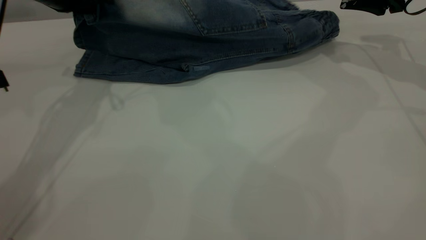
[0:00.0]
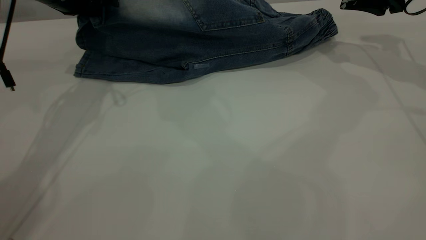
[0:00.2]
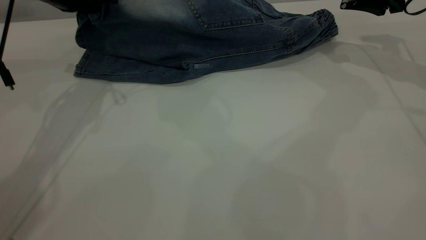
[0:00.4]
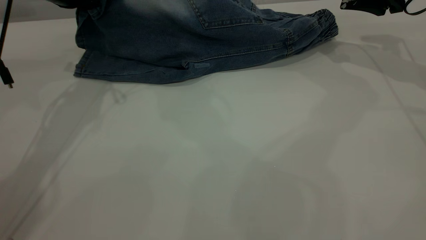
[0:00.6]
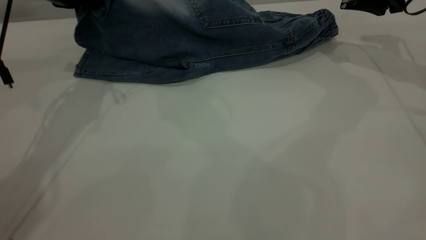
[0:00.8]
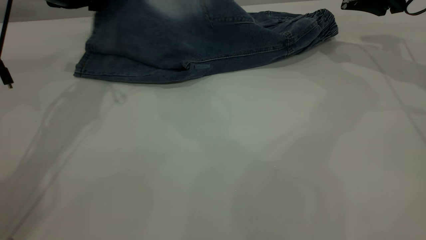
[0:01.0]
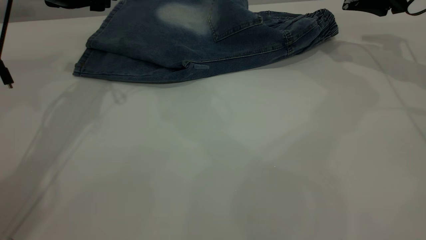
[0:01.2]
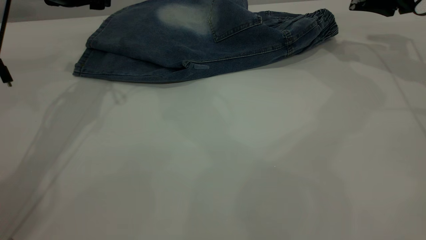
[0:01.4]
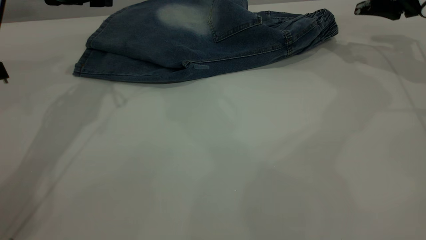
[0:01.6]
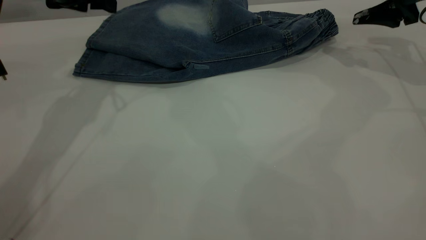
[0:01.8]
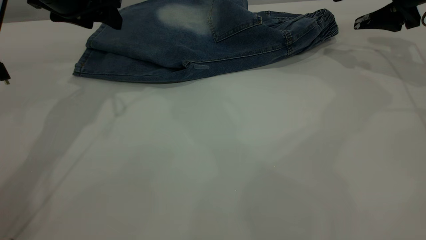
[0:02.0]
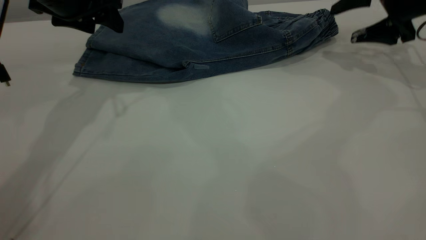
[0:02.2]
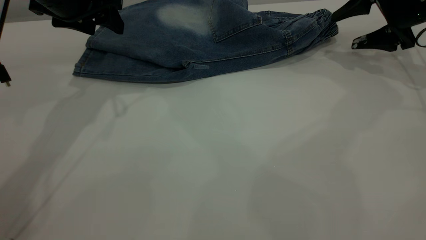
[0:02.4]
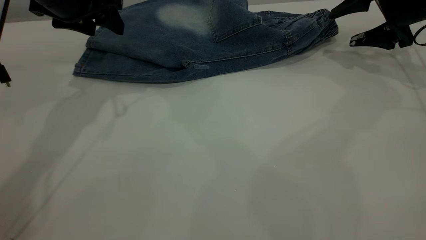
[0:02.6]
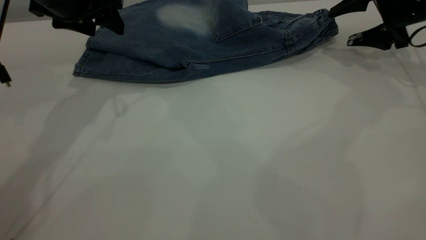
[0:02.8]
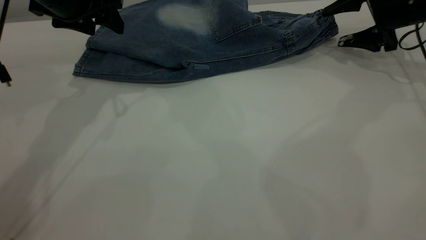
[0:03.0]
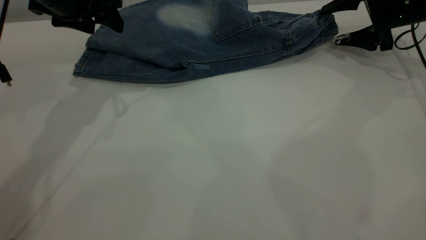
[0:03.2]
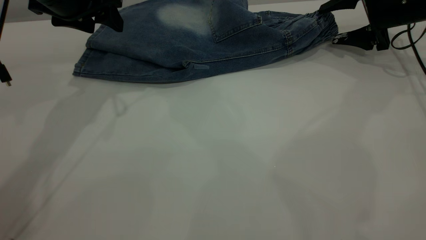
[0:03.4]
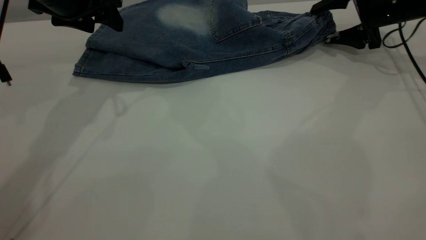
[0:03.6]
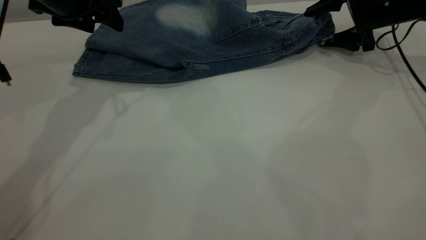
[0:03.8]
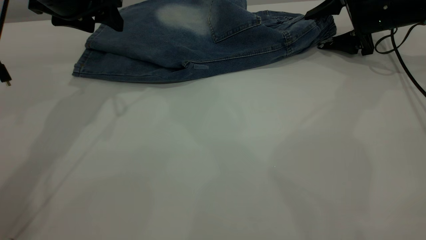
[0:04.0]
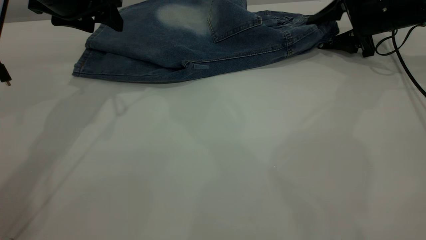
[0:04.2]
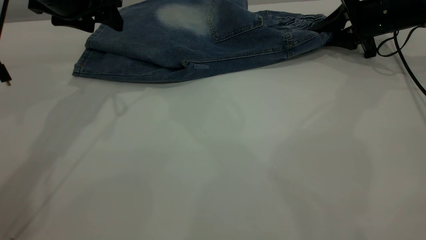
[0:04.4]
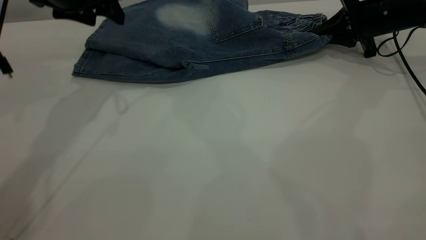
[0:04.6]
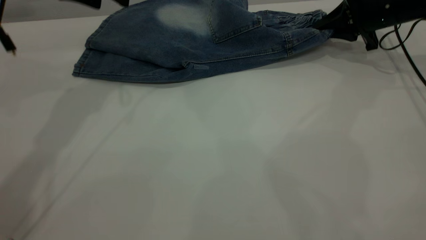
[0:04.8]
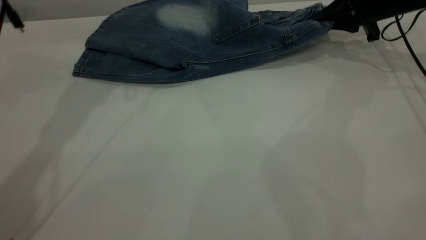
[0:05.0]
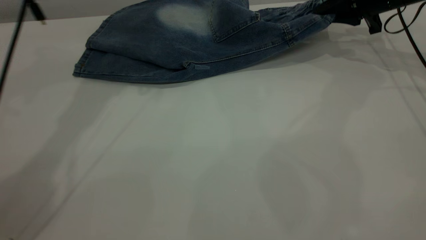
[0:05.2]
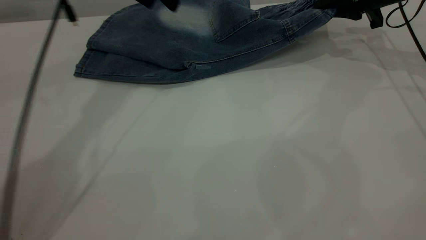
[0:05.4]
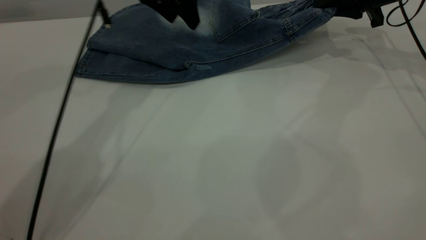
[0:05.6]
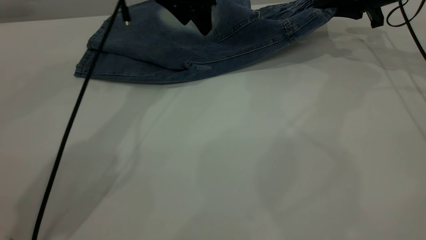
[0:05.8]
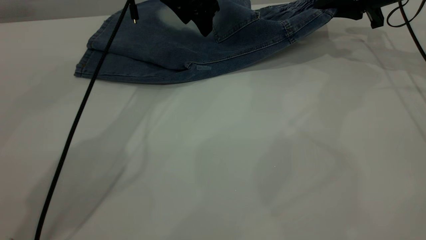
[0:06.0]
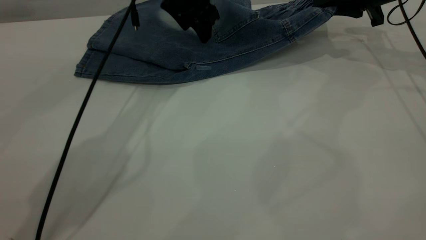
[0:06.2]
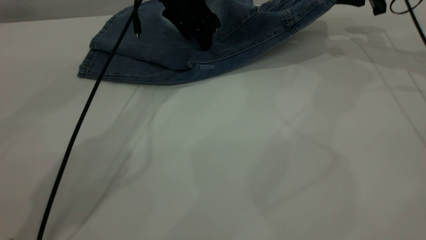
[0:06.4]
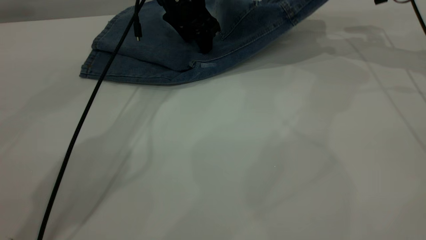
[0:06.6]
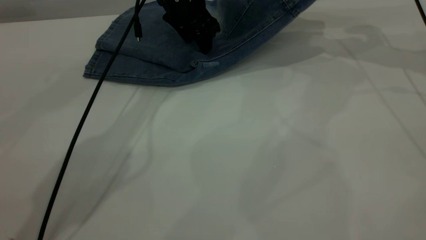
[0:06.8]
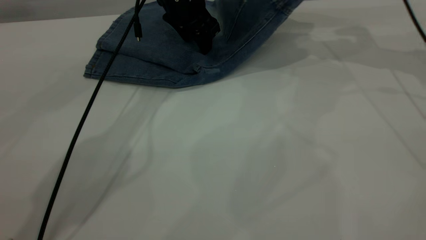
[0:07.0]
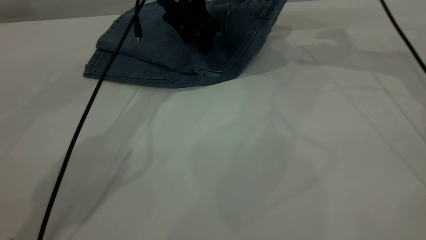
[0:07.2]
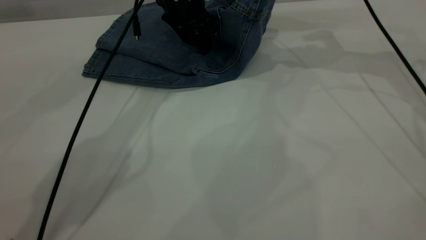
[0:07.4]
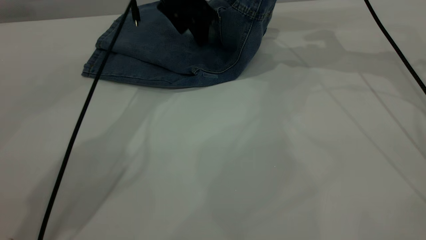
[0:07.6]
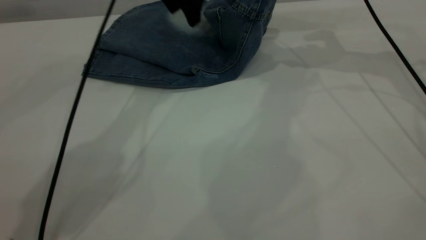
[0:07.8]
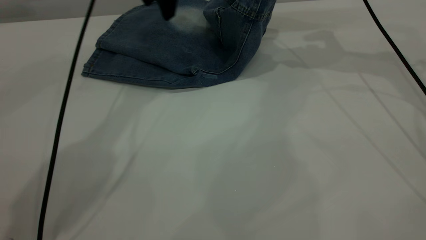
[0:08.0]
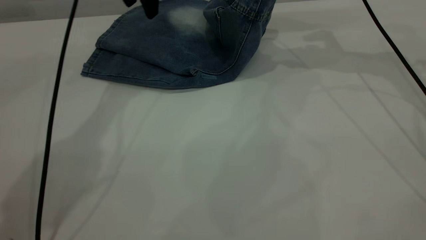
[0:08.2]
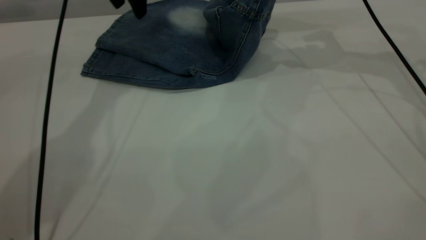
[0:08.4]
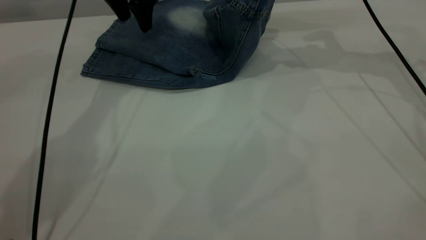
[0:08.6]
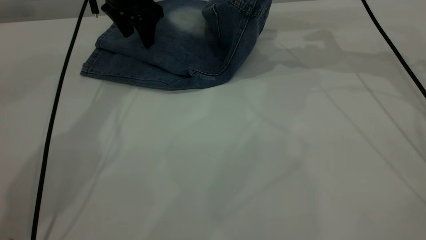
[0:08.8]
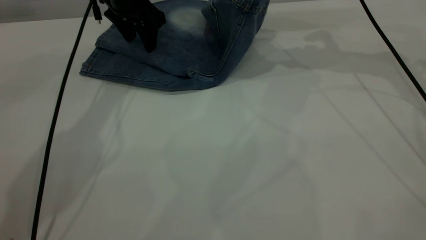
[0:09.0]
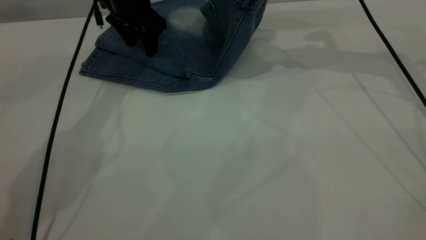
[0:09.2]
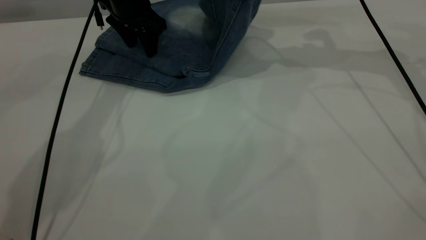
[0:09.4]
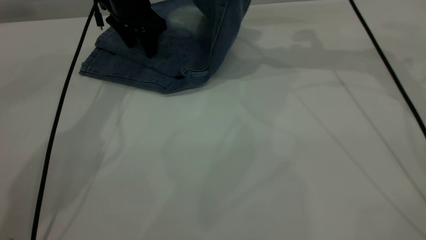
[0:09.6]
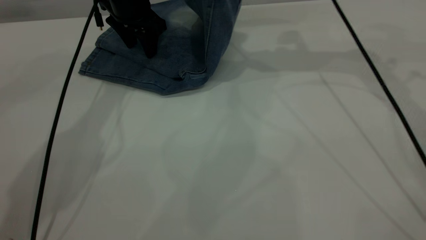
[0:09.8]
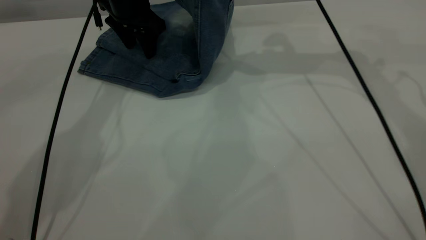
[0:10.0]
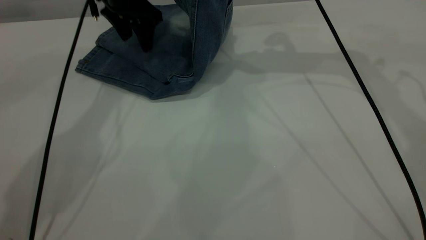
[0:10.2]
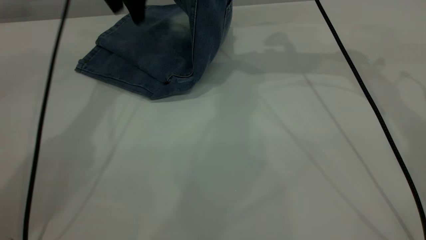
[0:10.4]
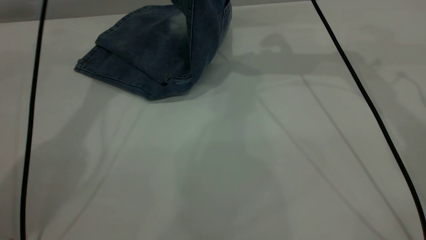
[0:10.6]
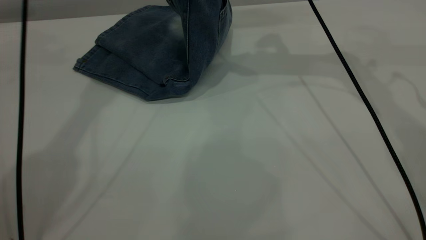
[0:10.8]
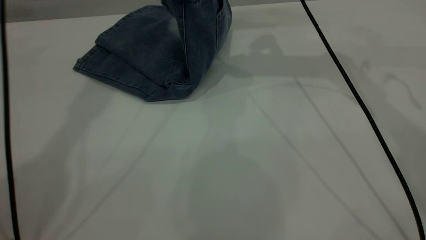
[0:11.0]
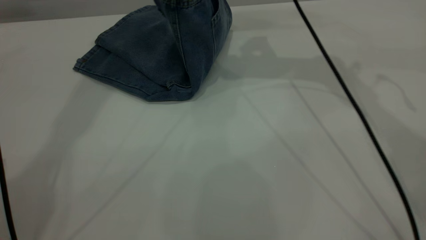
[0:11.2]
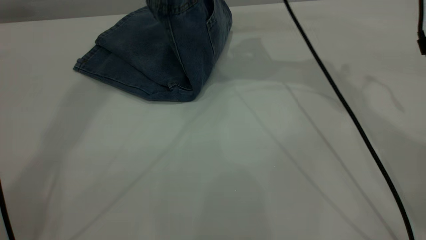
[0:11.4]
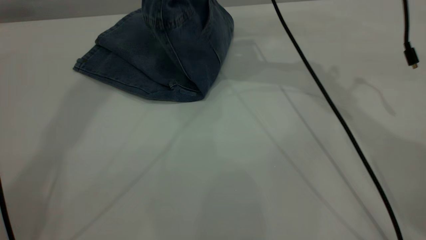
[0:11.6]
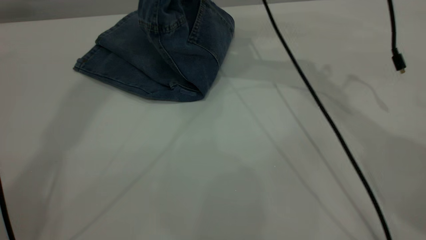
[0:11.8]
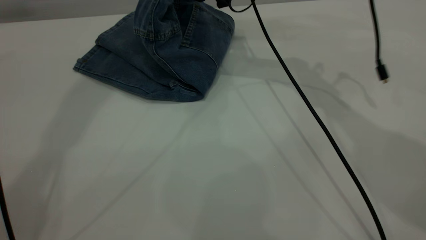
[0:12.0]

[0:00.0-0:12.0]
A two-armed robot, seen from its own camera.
0:00.0 to 0:01.6: The left gripper opens.
0:01.6 to 0:03.0: The right gripper goes some 5 cm downward.
0:03.0 to 0:04.4: The right gripper closes its fingers.
0:04.4 to 0:06.0: The left gripper goes approximately 20 cm to the right and forward; the right gripper is displaced upward by roughly 5 cm.
0:06.0 to 0:07.6: The right gripper shifts approximately 10 cm to the left and upward.
0:07.6 to 0:09.0: The left gripper shifts approximately 10 cm to the left.
0:09.0 to 0:10.4: The left gripper travels upward by approximately 10 cm; the right gripper moves to the left, roughly 5 cm.
0:10.4 to 0:12.0: The left gripper shifts roughly 25 cm upward. Meanwhile the right gripper shifts approximately 10 cm to the left and downward.

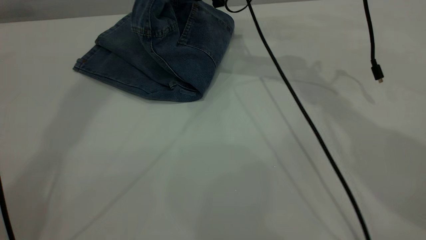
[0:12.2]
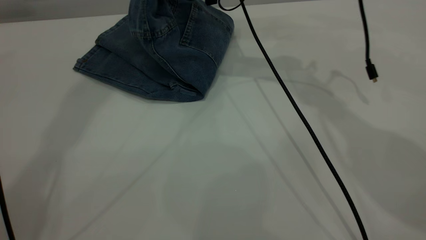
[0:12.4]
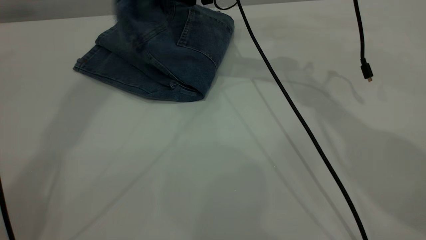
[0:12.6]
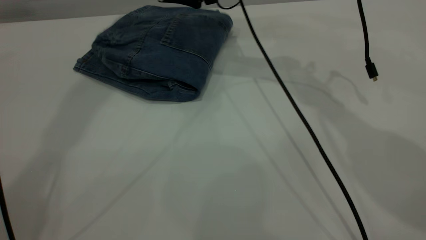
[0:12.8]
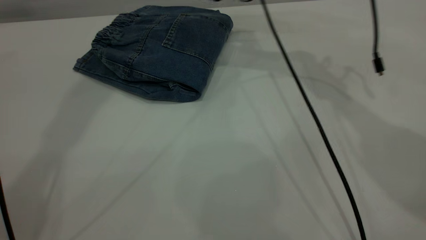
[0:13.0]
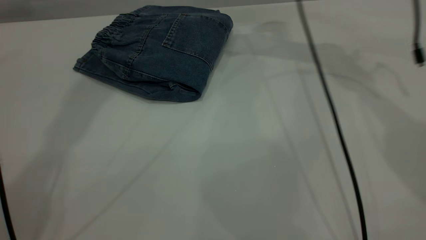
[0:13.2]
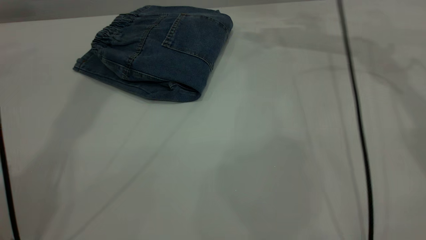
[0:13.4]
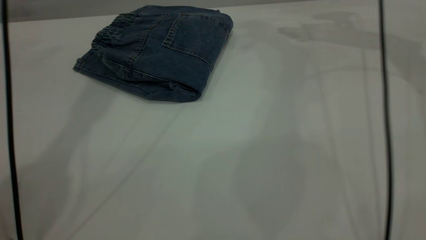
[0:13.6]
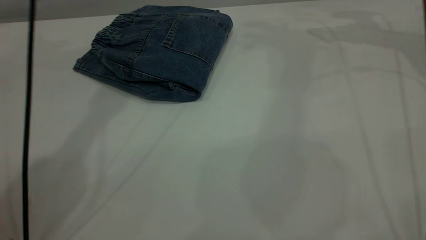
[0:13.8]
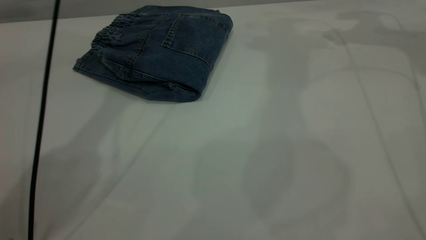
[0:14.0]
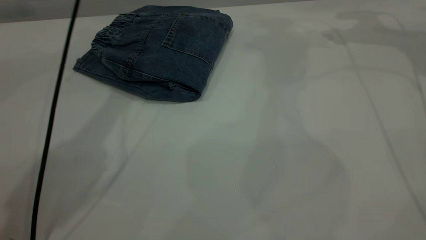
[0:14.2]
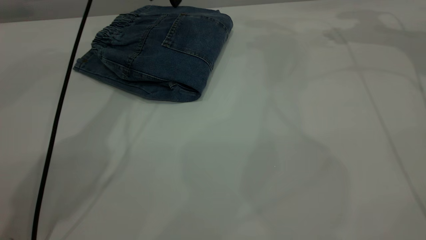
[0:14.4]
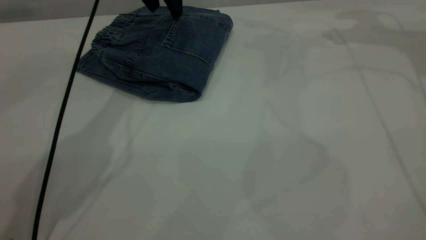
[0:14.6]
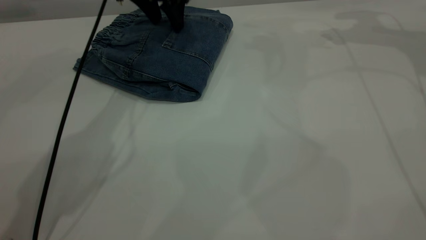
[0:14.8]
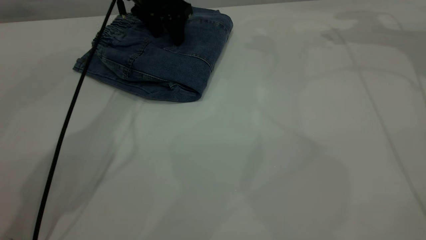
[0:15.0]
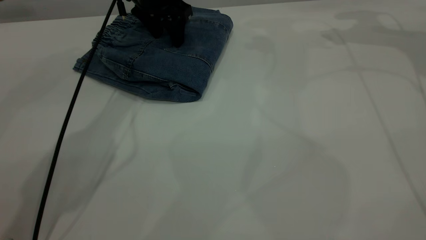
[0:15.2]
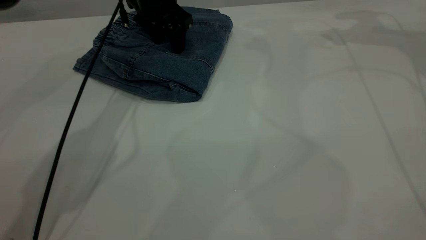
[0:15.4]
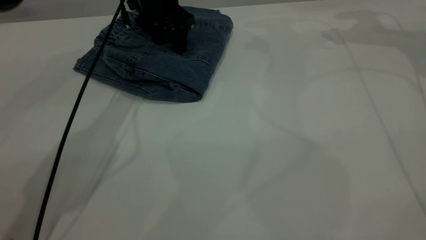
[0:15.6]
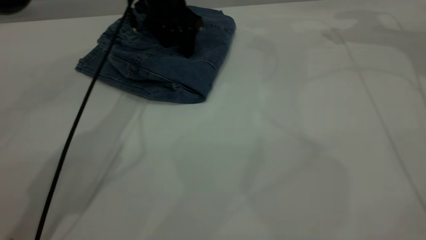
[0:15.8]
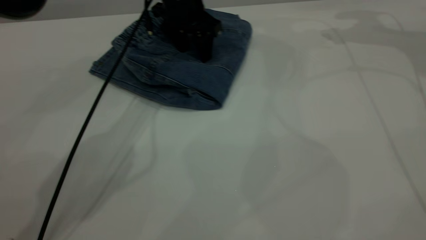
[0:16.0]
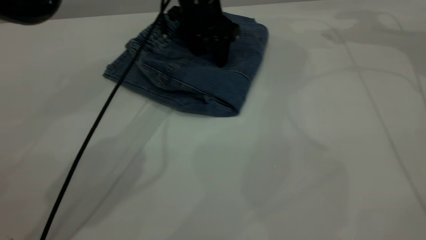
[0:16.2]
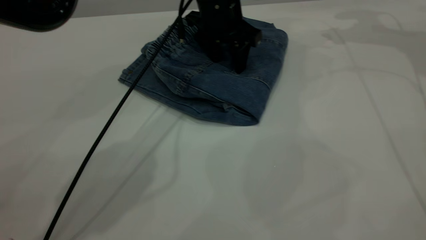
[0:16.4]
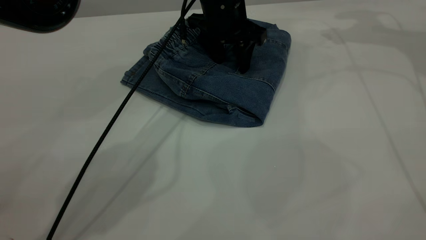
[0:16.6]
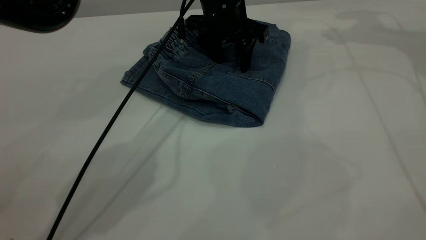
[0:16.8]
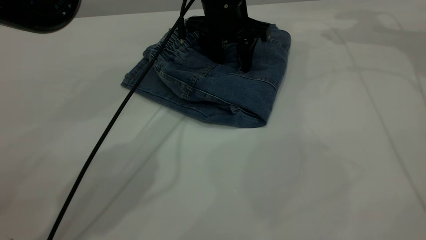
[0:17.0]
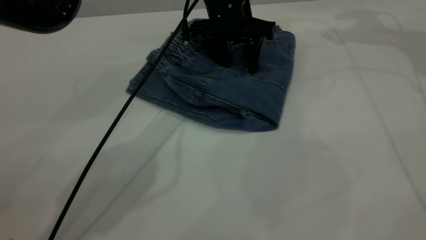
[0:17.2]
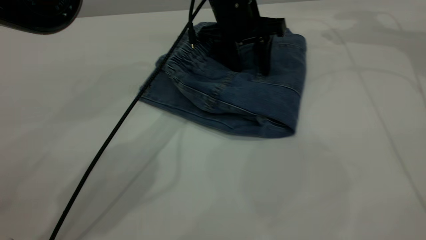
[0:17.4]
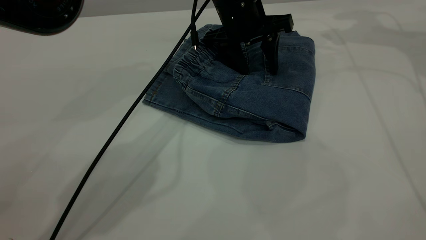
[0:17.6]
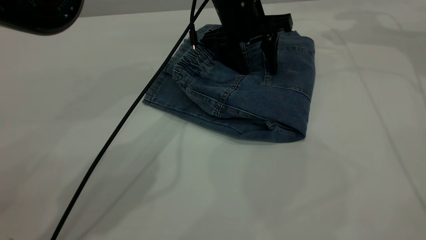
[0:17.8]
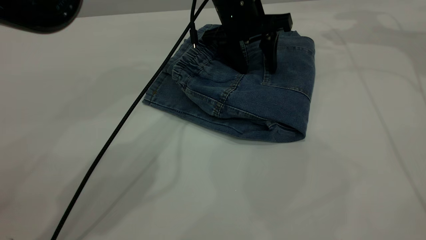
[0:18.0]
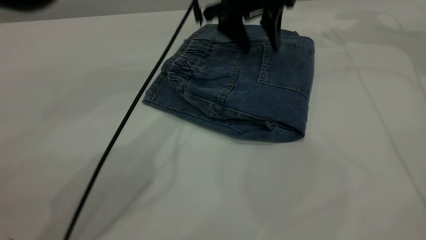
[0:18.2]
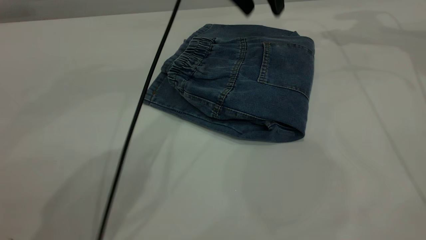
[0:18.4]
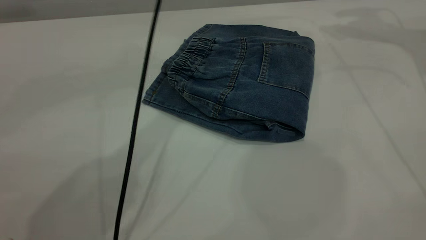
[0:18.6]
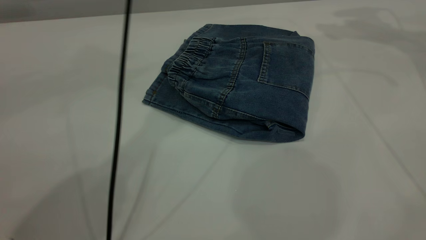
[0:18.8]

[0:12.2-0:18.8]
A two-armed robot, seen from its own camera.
0:12.2 to 0:13.8: The left gripper moves downward, some 15 cm. The right gripper shifts about 25 cm to the right, and opens its fingers.
0:13.8 to 0:15.4: The left gripper heads downward, covering roughly 20 cm.
0:15.4 to 0:17.2: The left gripper shifts approximately 15 cm to the right and backward.
0:17.2 to 0:18.8: The right gripper goes roughly 10 cm upward. Meanwhile the left gripper travels upward by approximately 25 cm.
